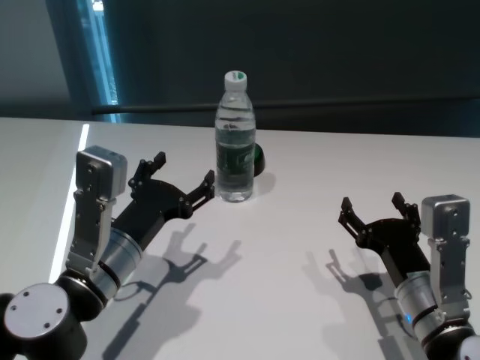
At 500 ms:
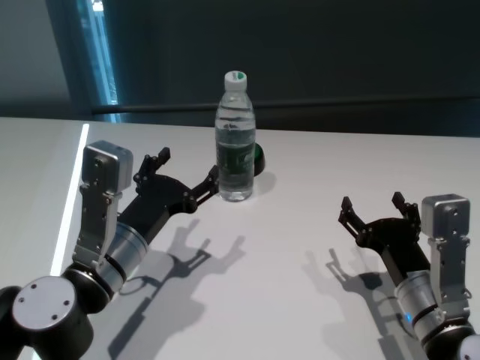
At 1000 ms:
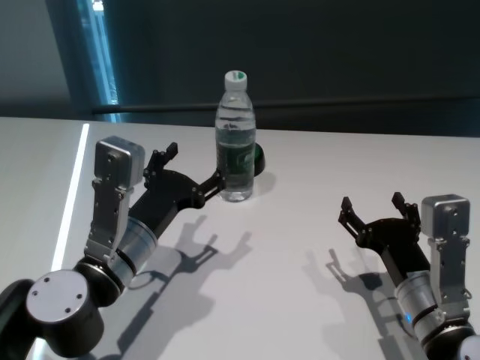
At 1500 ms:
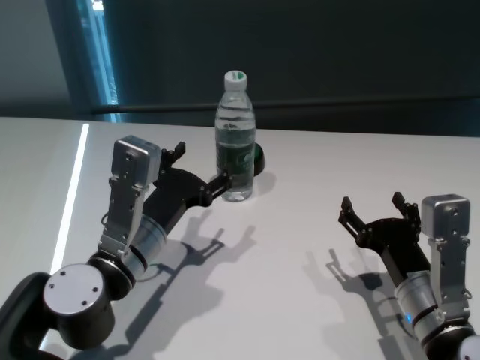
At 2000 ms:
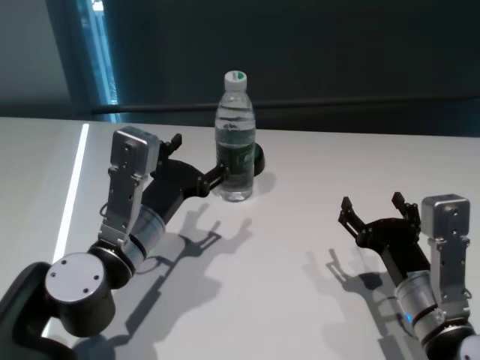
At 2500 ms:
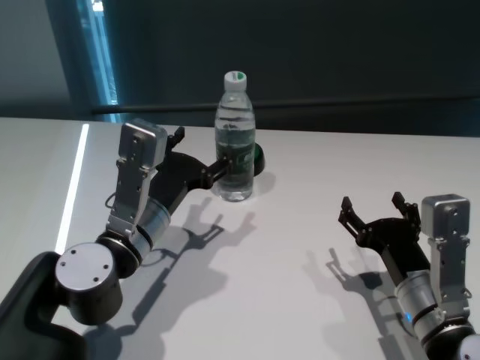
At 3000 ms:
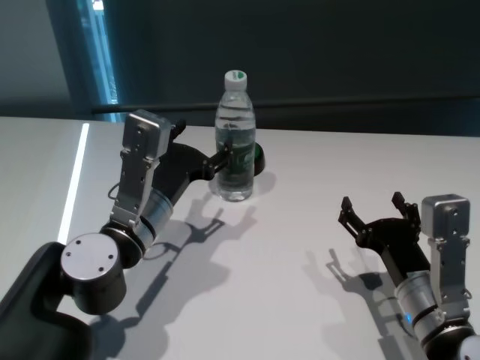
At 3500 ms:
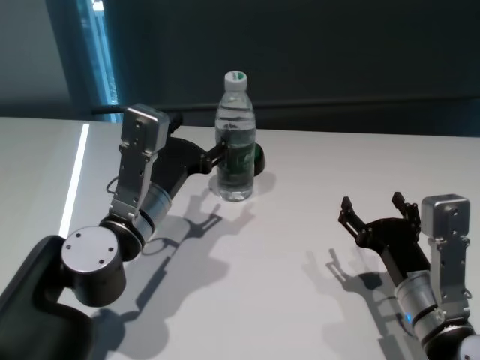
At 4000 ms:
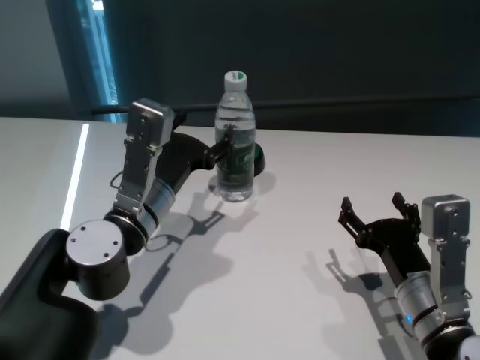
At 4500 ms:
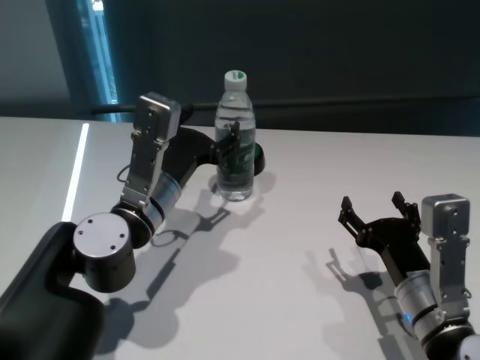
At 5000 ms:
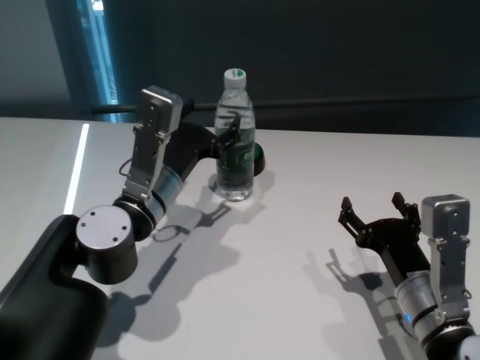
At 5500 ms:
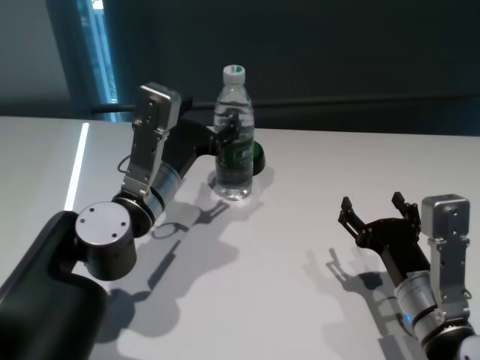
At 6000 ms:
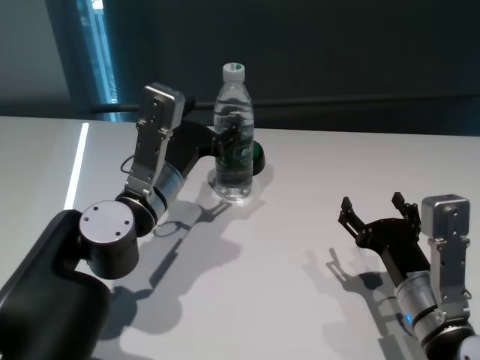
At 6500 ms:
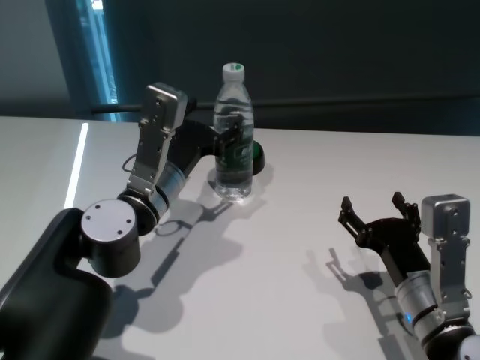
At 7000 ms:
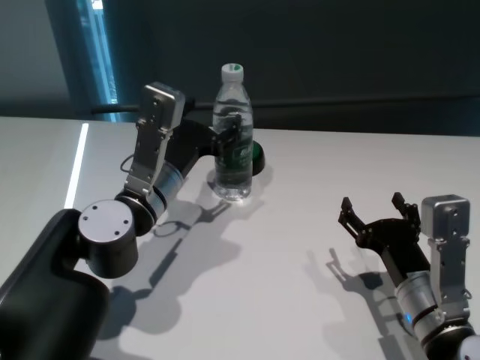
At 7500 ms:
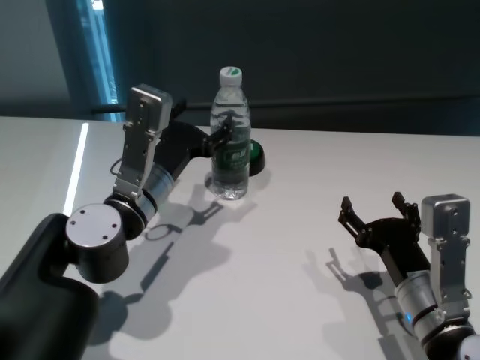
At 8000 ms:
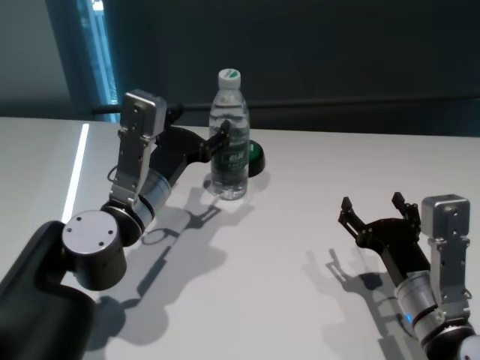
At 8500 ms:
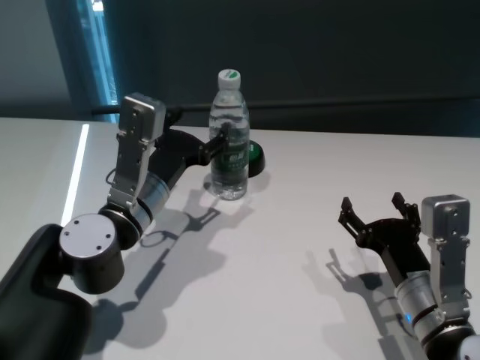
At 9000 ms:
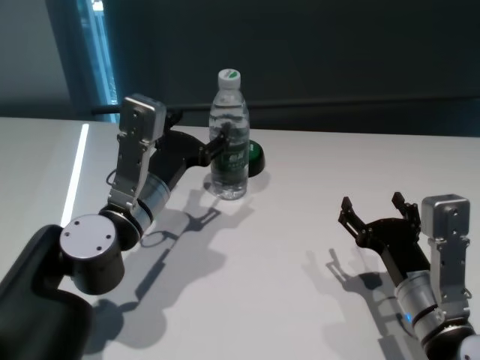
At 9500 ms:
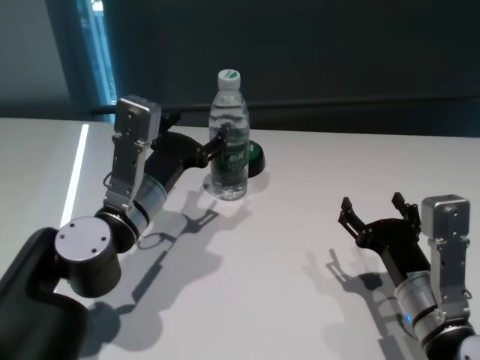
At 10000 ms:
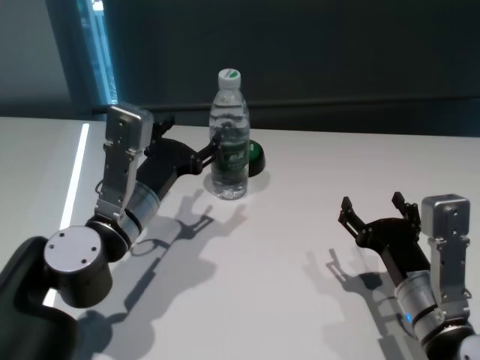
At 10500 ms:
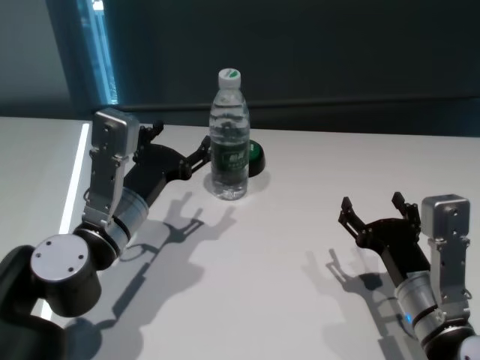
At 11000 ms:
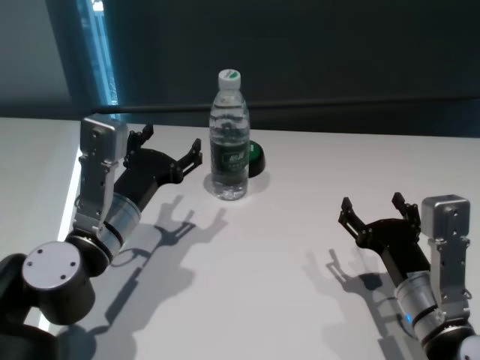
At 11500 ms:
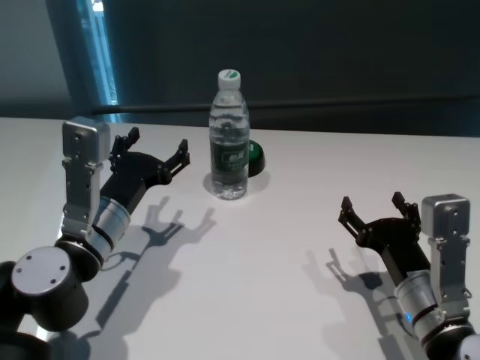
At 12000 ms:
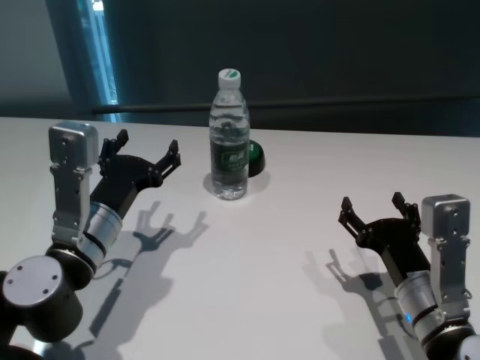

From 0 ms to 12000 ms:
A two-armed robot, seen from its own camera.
Task of the whole recording: return to a safe position after touching an obstacle with your arm on the white table.
Step, from 0 ms to 10500 ms: Touch the bottle with left gripper.

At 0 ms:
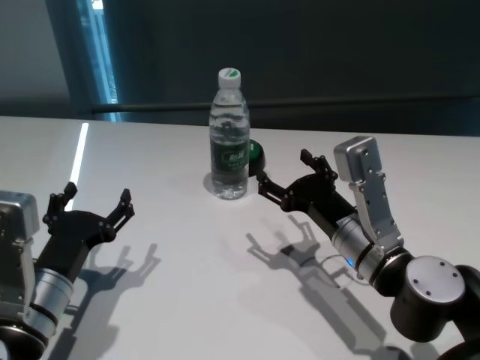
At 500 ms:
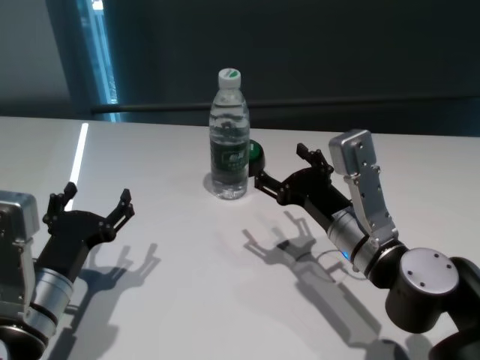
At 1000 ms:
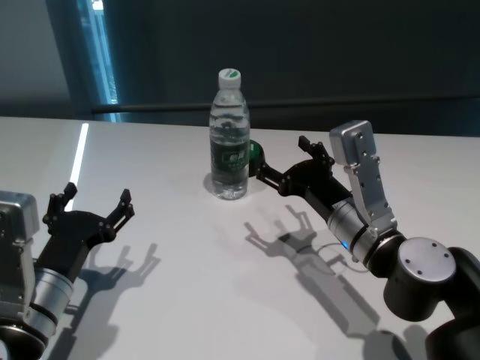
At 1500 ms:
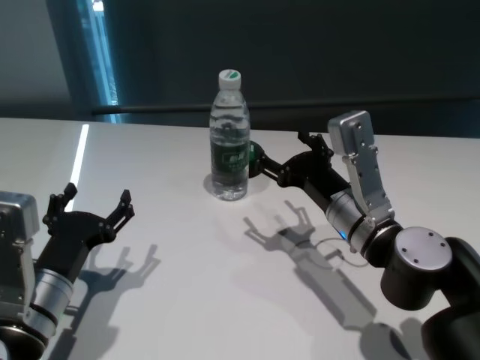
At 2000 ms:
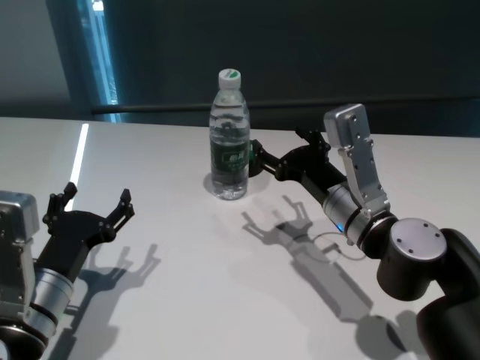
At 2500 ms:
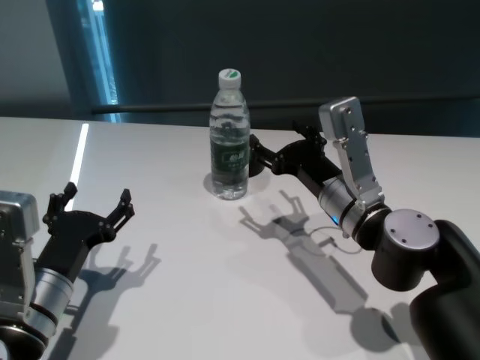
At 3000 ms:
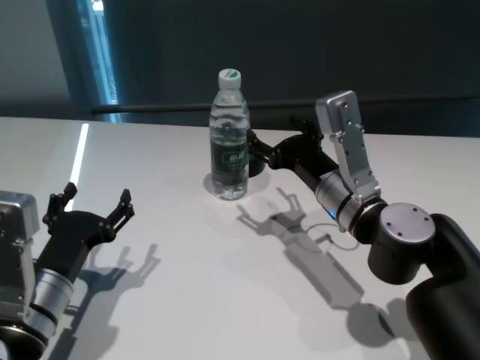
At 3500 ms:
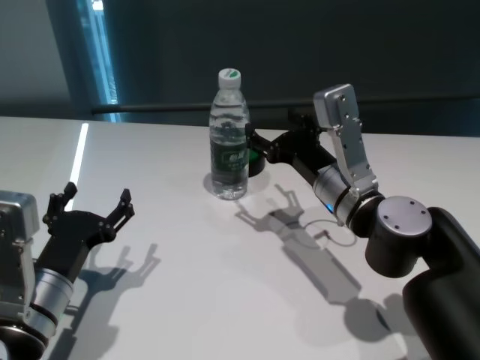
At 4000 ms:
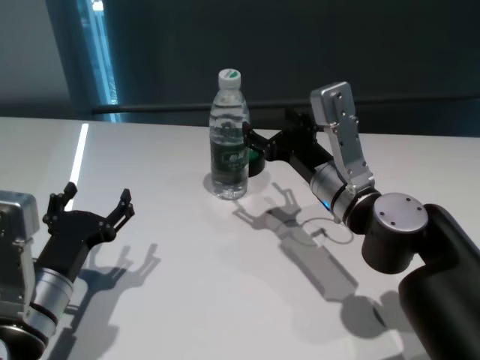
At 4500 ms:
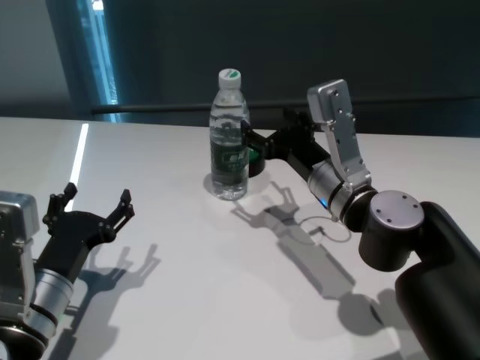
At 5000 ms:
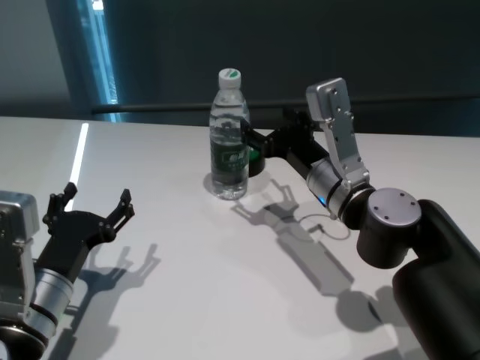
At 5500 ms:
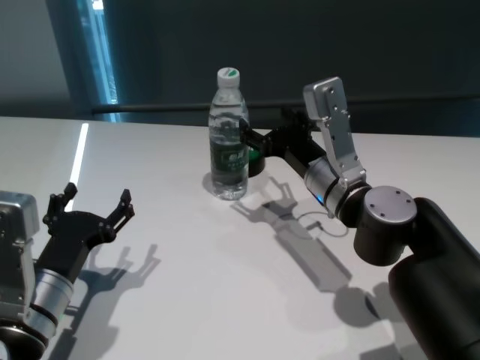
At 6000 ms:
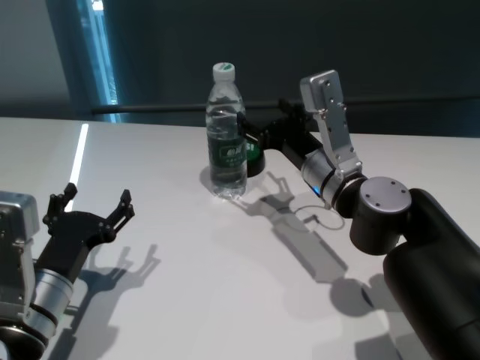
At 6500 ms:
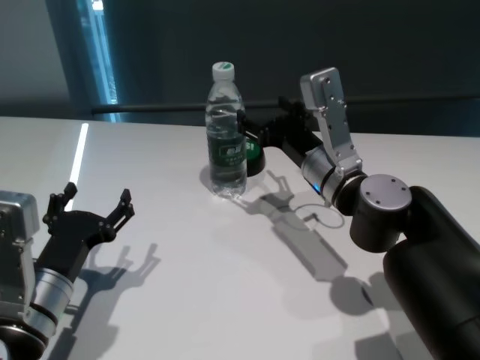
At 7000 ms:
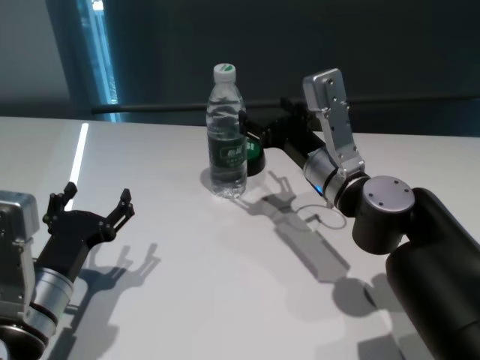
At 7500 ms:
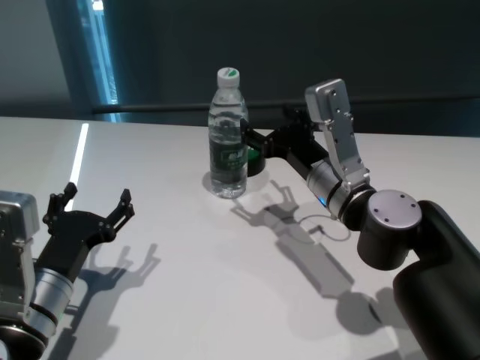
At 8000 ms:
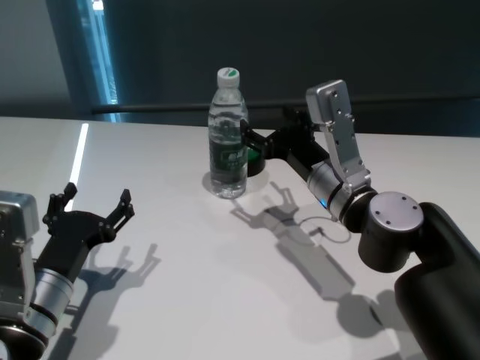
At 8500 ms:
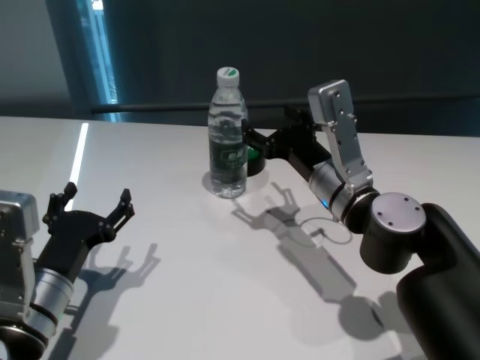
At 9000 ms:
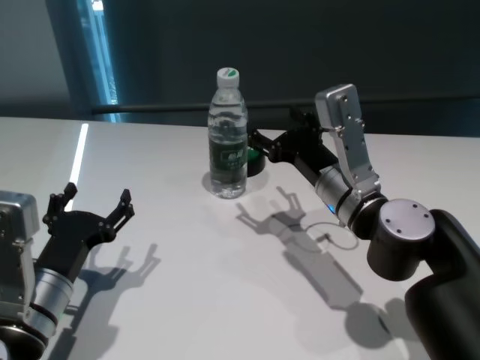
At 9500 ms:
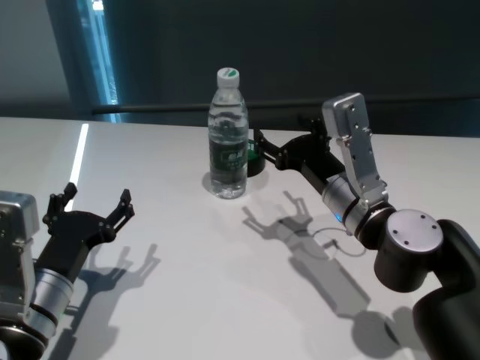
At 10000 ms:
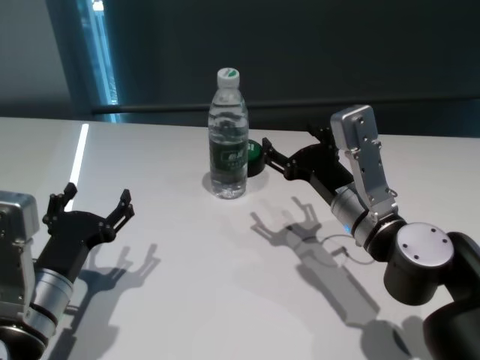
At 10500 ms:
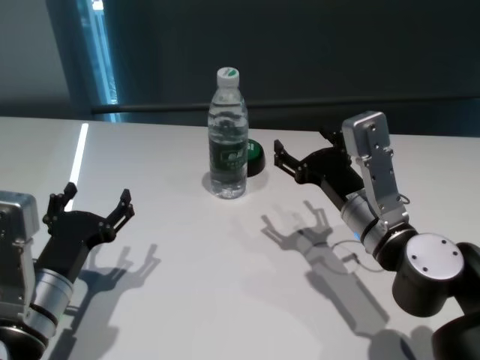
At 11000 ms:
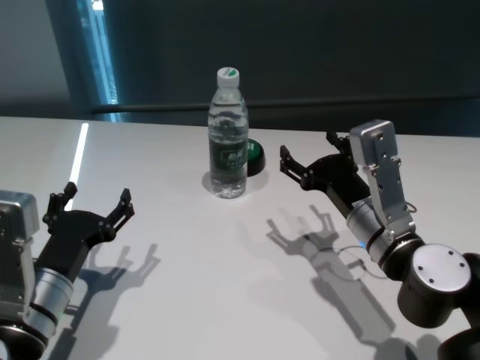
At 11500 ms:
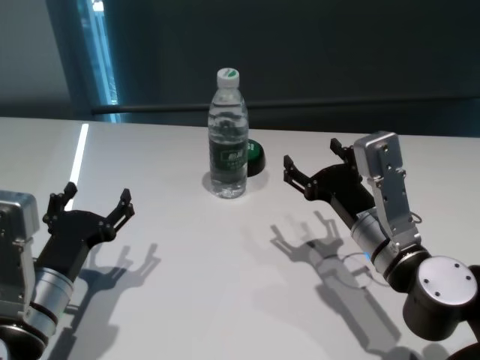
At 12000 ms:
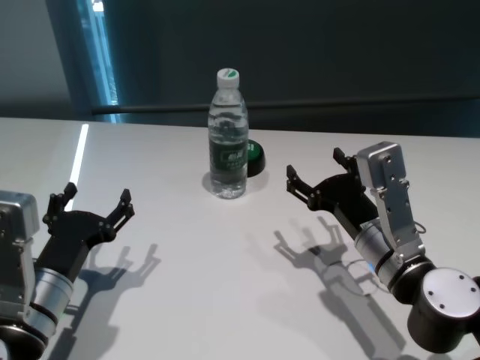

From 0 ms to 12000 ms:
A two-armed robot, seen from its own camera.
Task of the whole recording: return to a safe position after touching an obstacle with your arm on the white table.
Step, from 0 ms to 9500 ms: Touch the bottle with right gripper.
